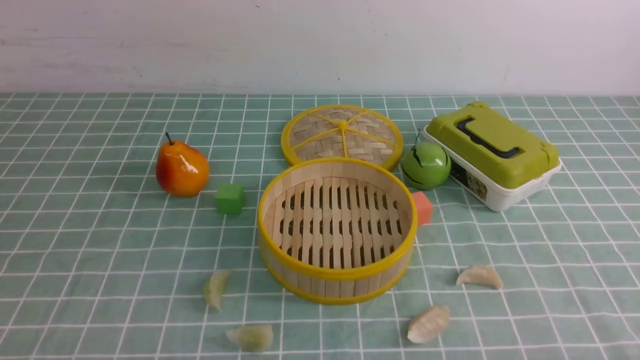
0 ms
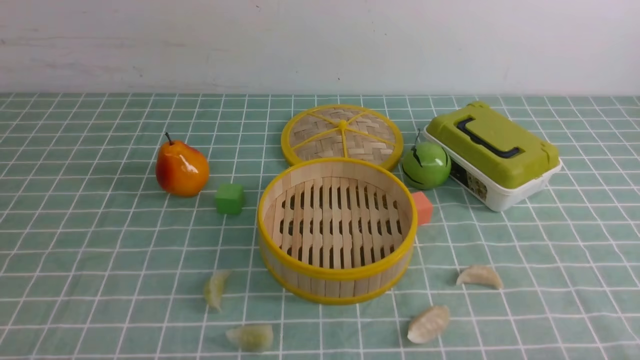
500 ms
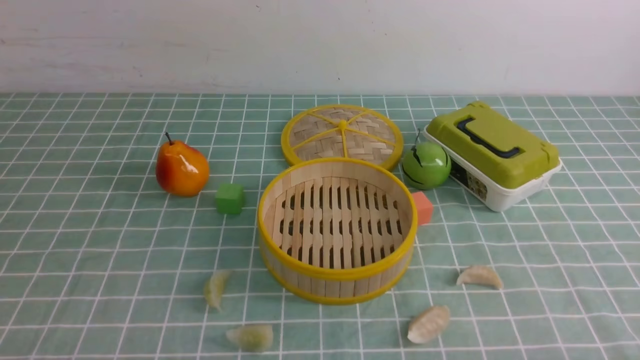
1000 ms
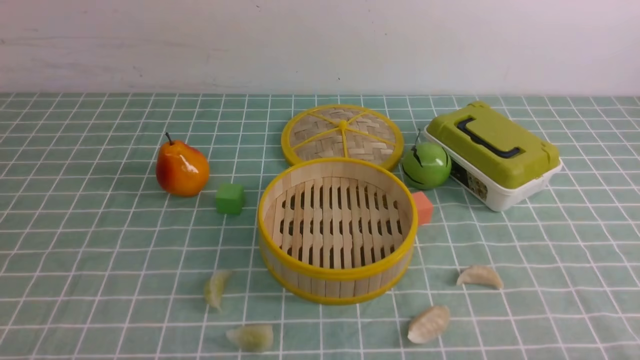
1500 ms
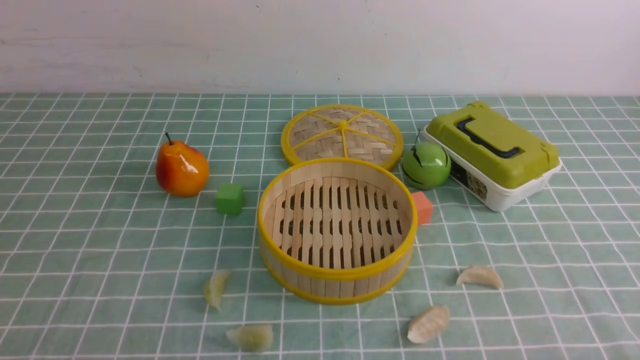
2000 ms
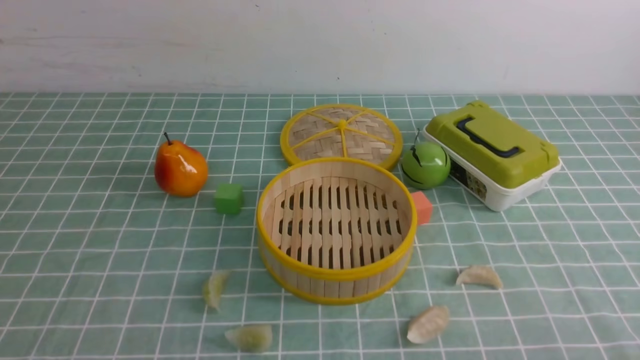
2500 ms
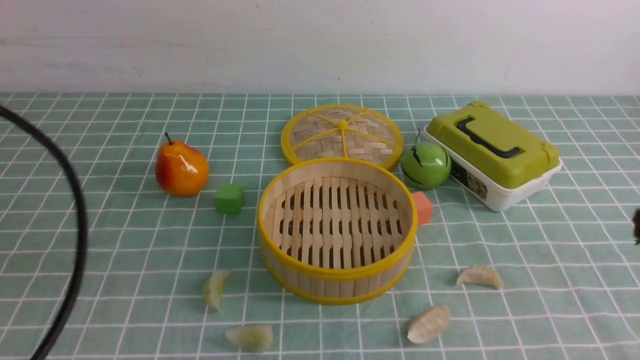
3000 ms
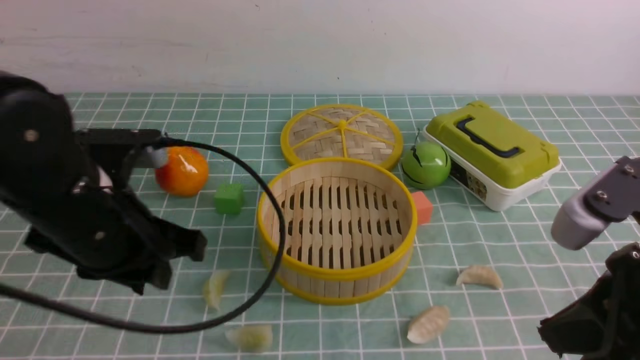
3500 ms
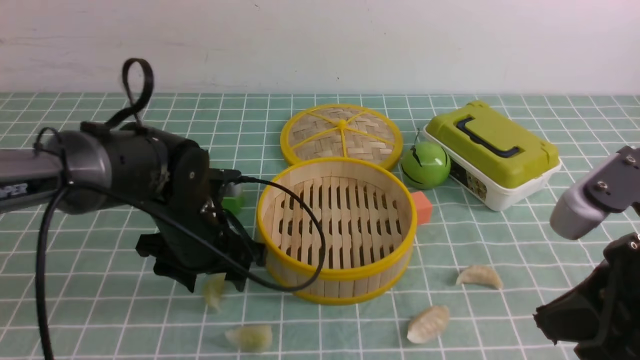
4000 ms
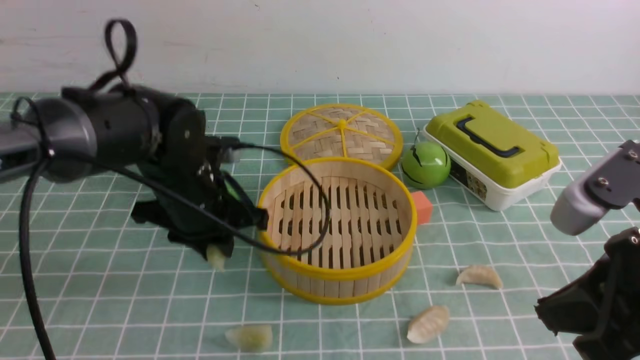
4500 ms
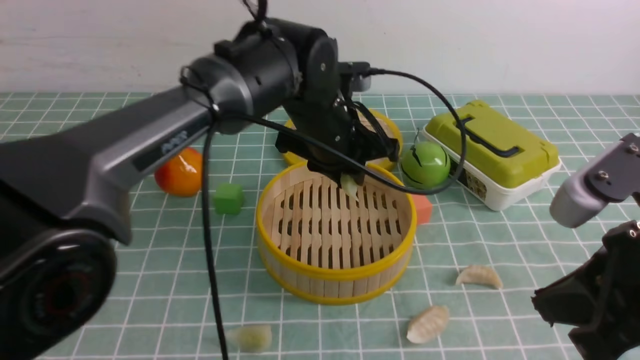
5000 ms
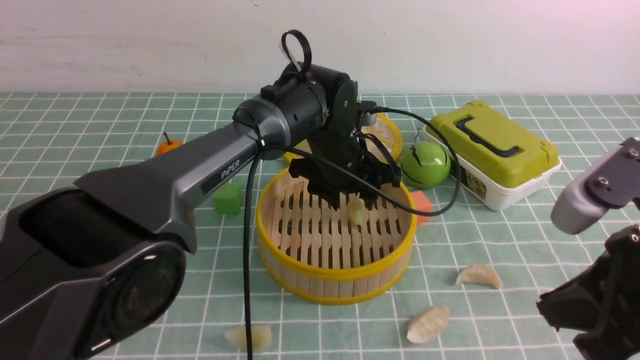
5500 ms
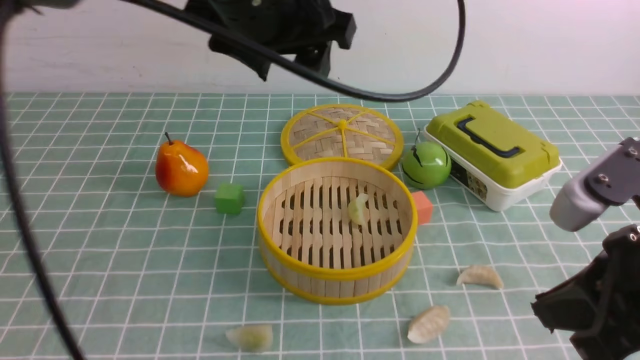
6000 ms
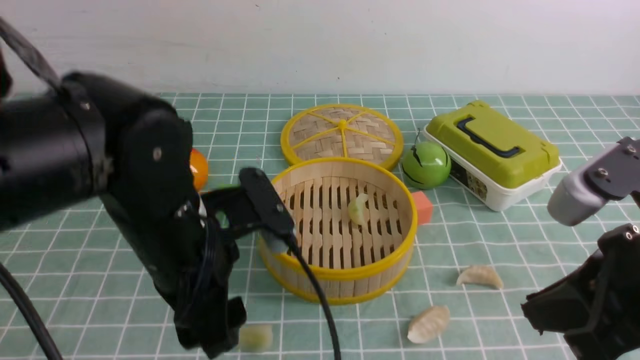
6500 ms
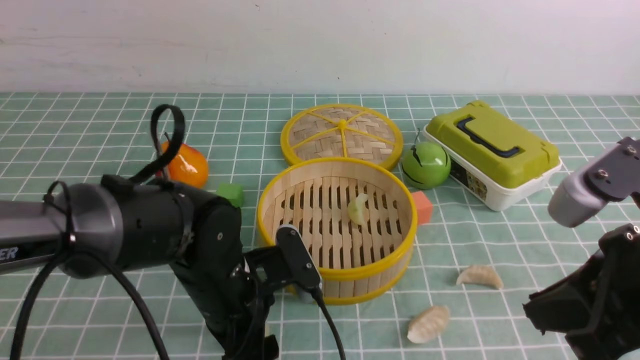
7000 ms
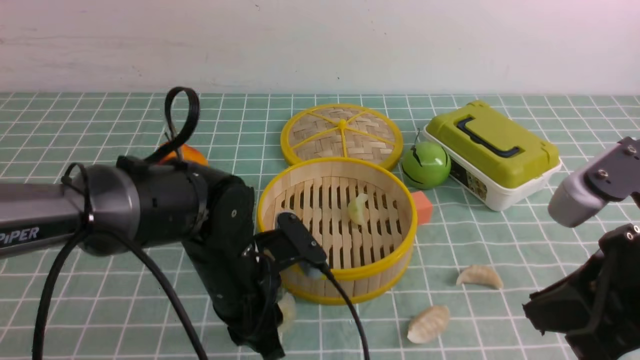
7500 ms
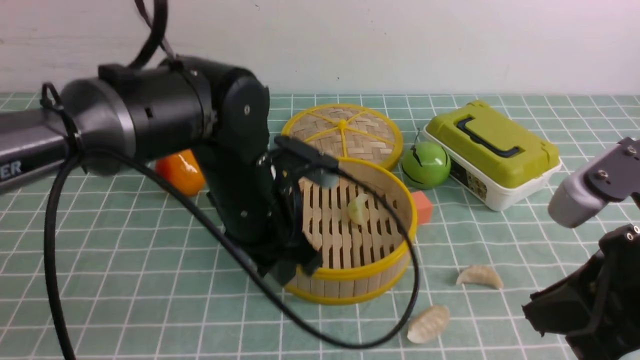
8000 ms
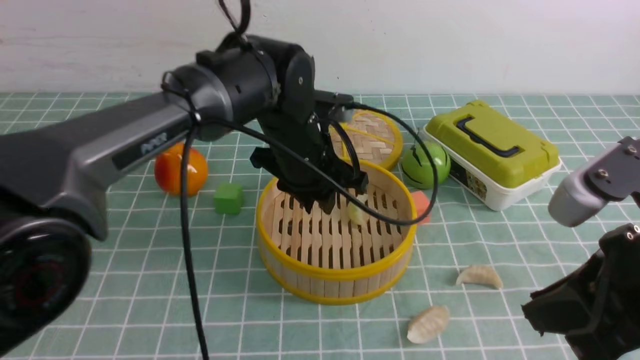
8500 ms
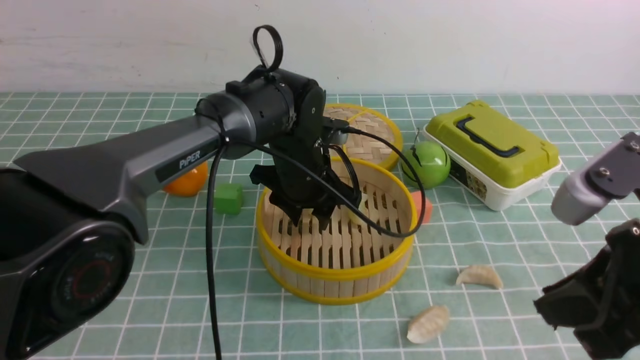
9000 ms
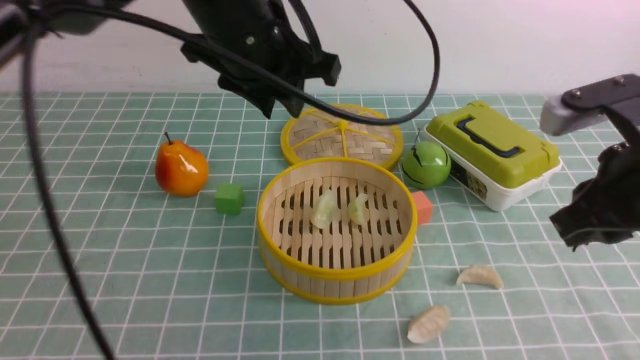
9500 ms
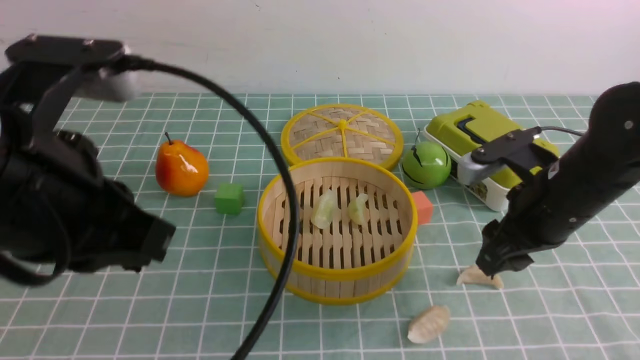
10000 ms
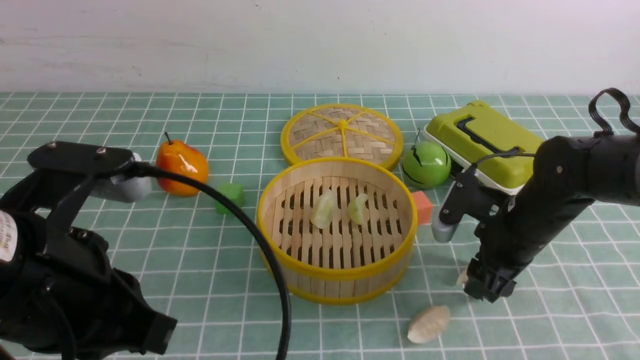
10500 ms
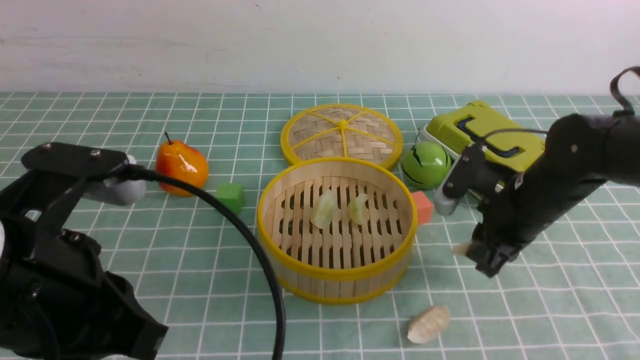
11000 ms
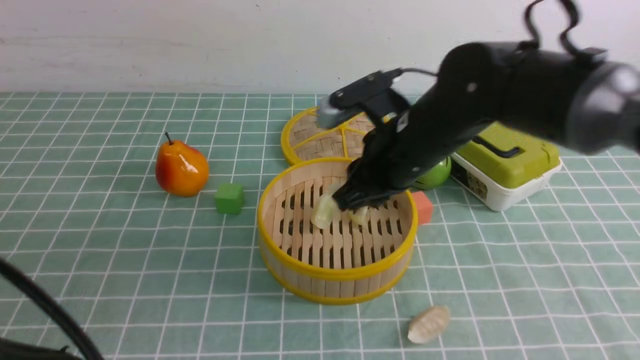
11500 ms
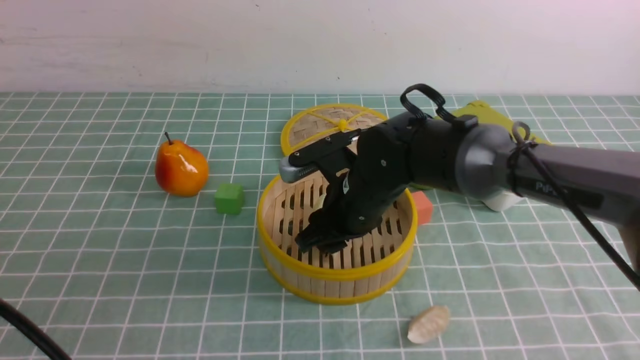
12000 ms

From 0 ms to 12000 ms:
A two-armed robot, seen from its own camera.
Task of the whole recording: put the dumplings into the steamer on the table with the blue tablecloth.
Step, from 0 ms to 4500 ms: use the left arm to grab a dumpling.
Step, from 5000 ms to 5500 ms: use the left arm to put the dumpling into the steamer.
Step, from 6000 ms to 7500 ms: use the left arm to grab a dumpling.
Step, from 8000 ms to 9000 ms: use the left arm to put the dumpling into the steamer.
Step, from 9500 ms to 11000 ms: use the right arm to grab a dumpling.
From 2000 ms to 4000 ms: The left gripper shifts some 30 cm forward and to the right, and opens its fingers. The right gripper goes approximately 20 cm upward, forward and to the left, and closes.
From 4000 ms to 6000 ms: The left gripper travels upward by roughly 20 cm, and closes, then reopens.
From 6000 ms to 8000 ms: The left gripper goes some 15 cm downward, and closes up.
From 8000 ms to 10000 ms: The right gripper heads forward and downward, covering some 20 cm, and opens up. The left gripper moves backward, upward and to the left, some 20 cm, and closes its fingers.
From 10000 ms to 12000 ms: The right gripper is displaced to the left by roughly 20 cm, while the left gripper heads backward, to the left and downward, covering some 15 cm.

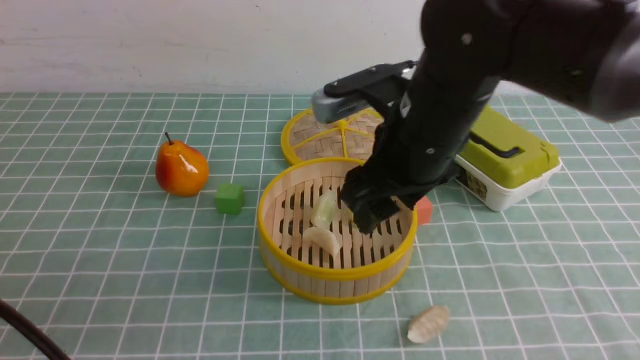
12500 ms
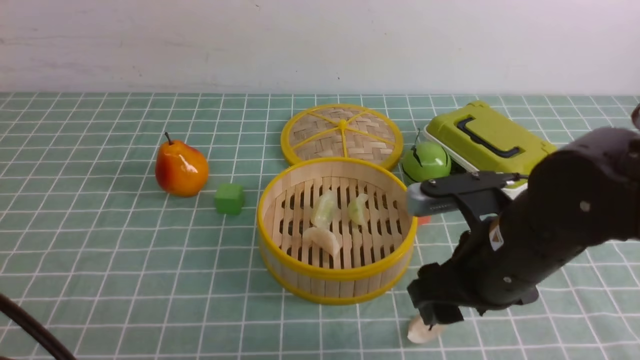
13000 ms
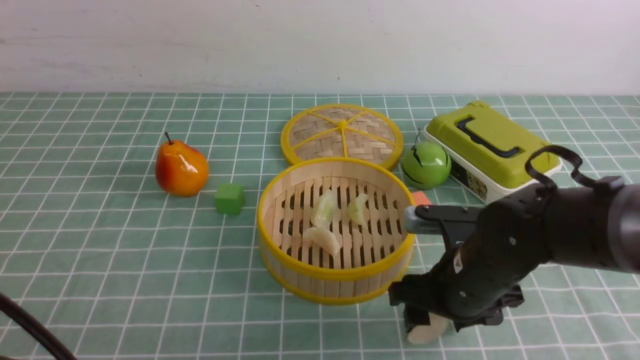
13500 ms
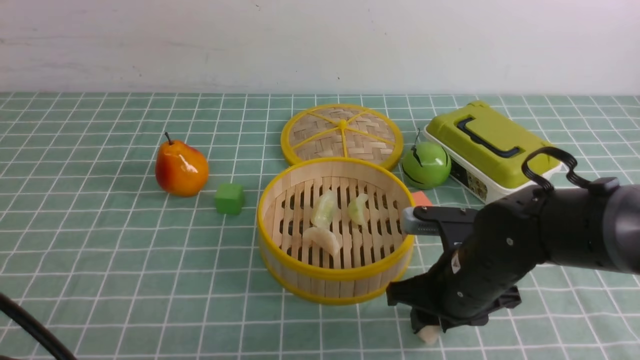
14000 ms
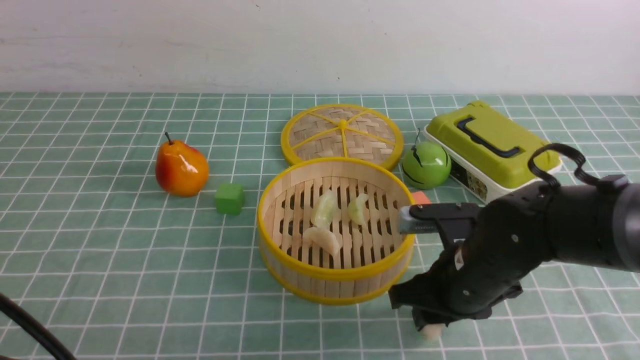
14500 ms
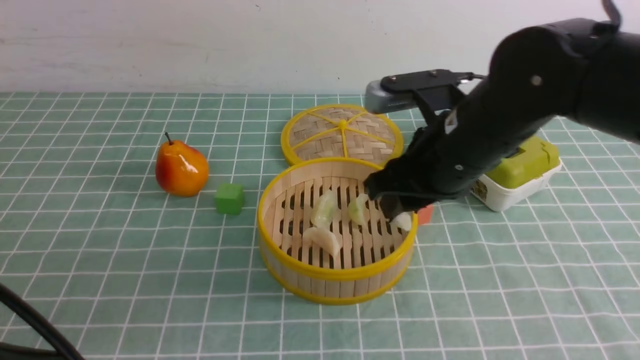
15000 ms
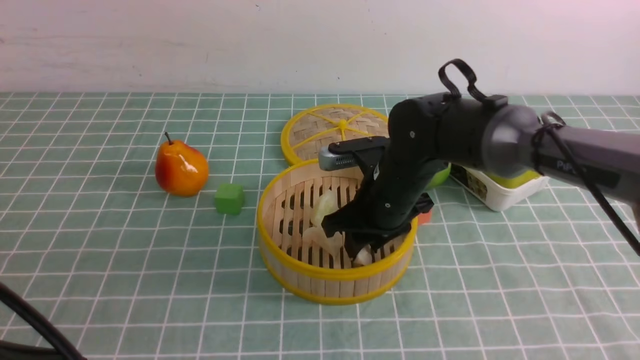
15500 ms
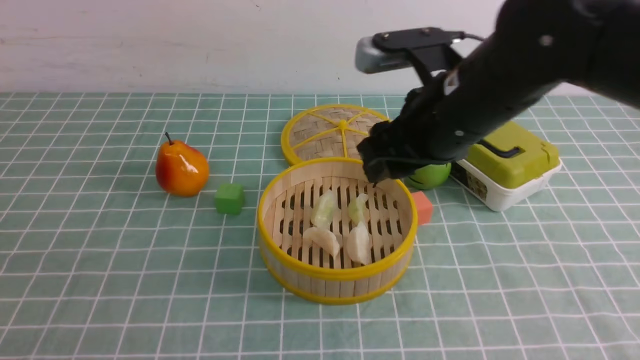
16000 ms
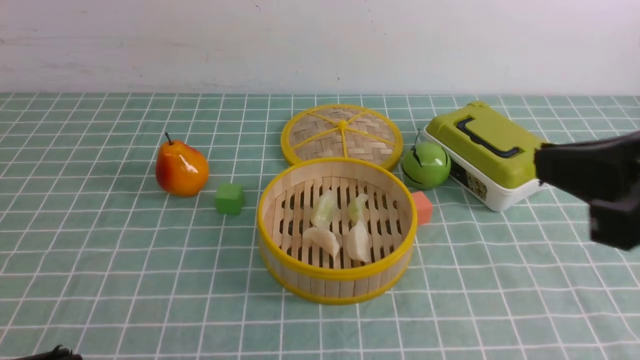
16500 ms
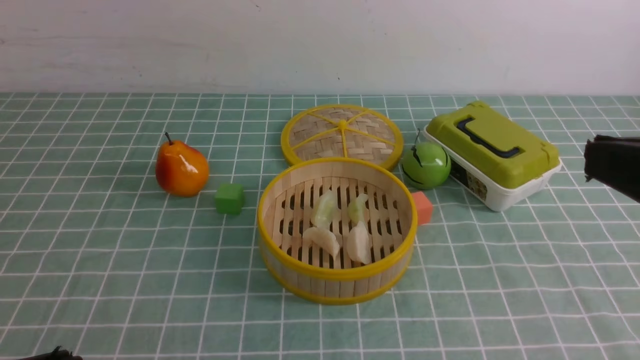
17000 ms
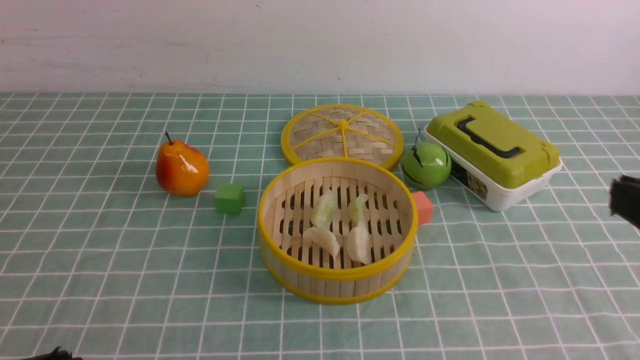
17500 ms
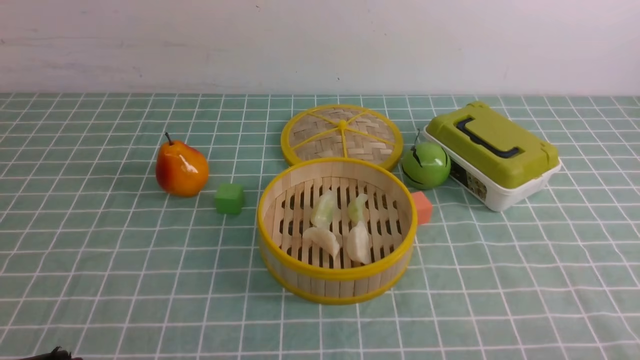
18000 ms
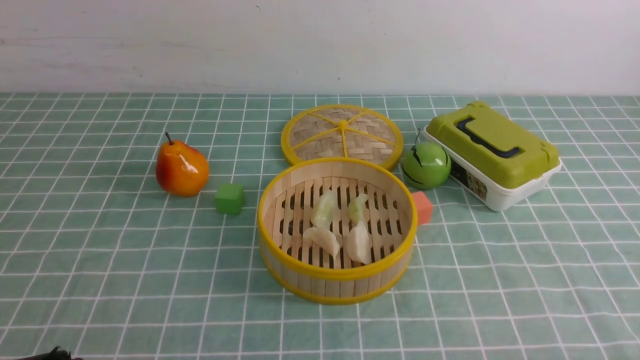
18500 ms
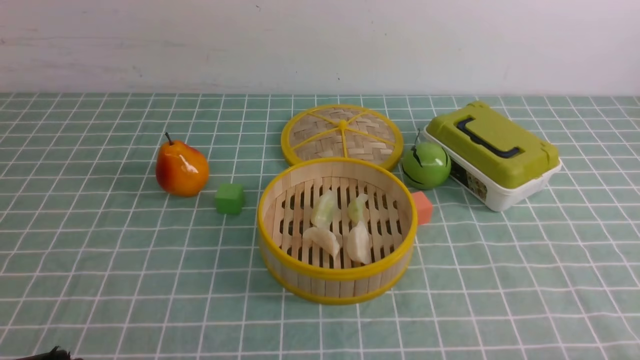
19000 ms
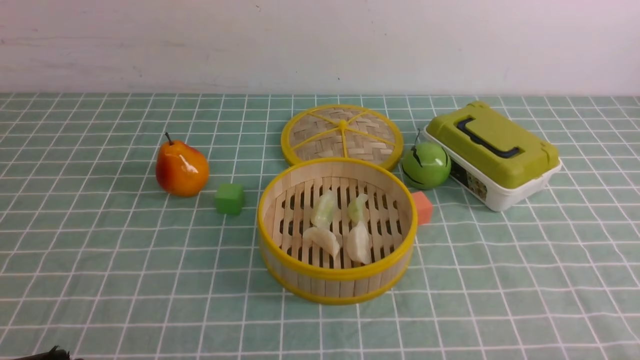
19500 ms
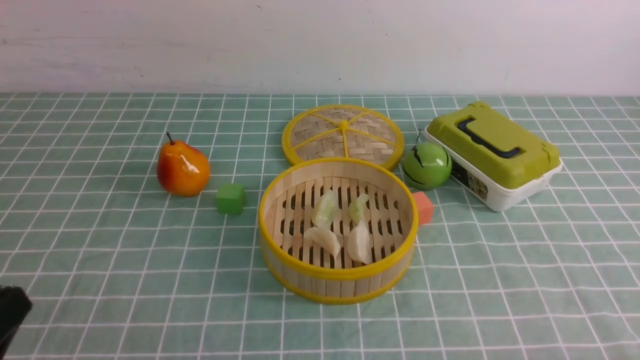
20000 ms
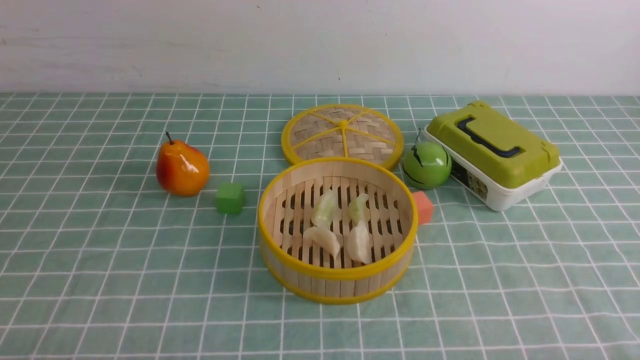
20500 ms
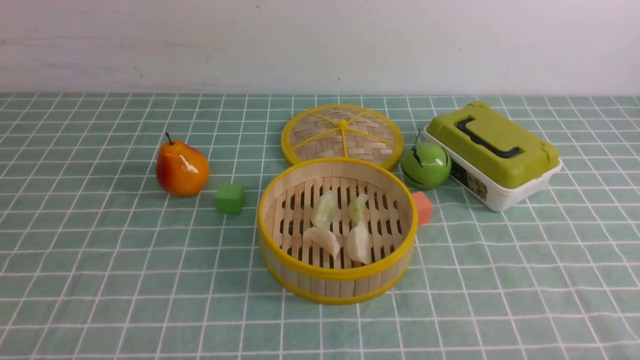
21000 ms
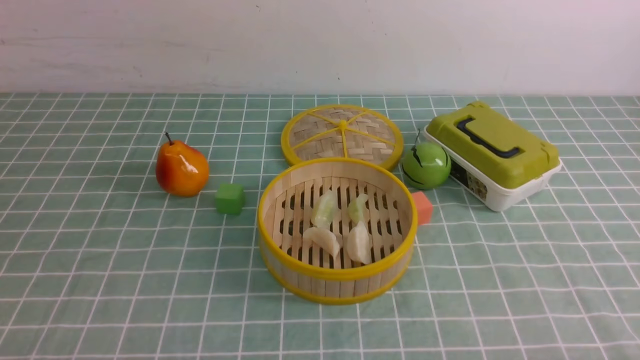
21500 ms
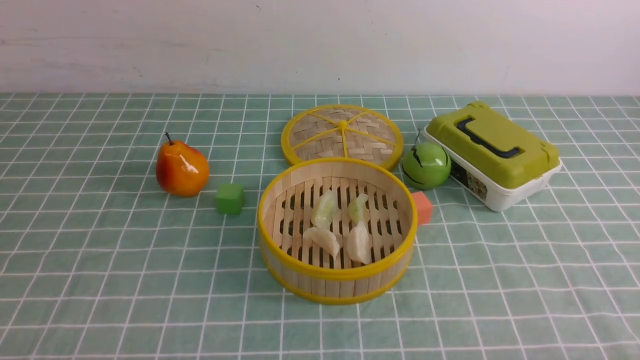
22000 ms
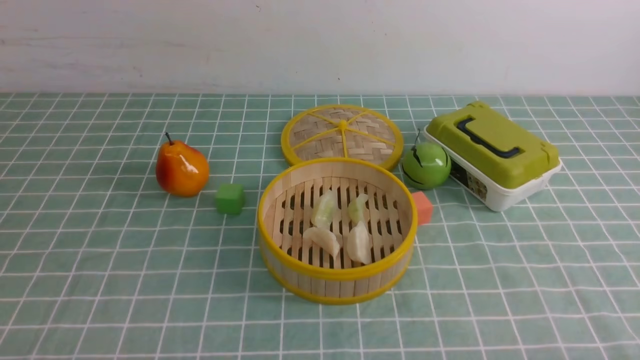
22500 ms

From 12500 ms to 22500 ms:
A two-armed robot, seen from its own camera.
Task of the whole recording: put the dumplings into the steamer on the table with the blue tablecloth.
Step, from 12500 ms to 14500 ms: use the right arm to grab a dumpling.
Step, from 15000 ms to 16000 ms: use the right arm to put the dumpling into the steamer.
From 12500 ms to 14500 ms: The right gripper shifts approximately 15 cm downward and to the right, and closes.
From 14500 ms to 16500 ms: The right gripper moves upward and backward, approximately 25 cm, and closes its fingers.
From 16500 ms to 18500 ms: The right gripper heads downward, backward and to the right, covering some 25 cm.
